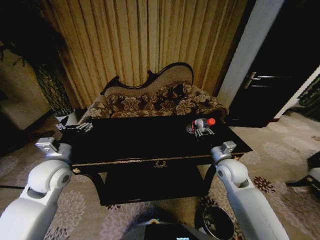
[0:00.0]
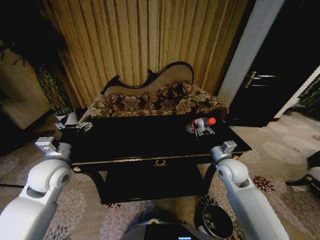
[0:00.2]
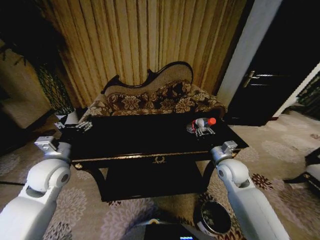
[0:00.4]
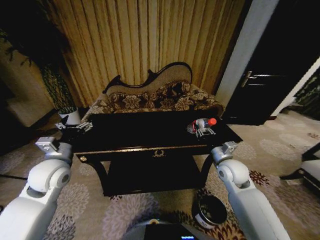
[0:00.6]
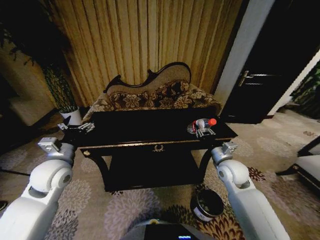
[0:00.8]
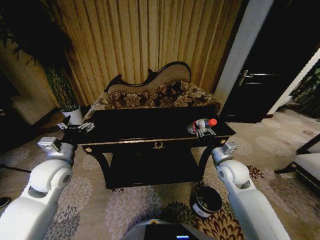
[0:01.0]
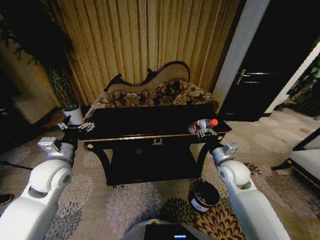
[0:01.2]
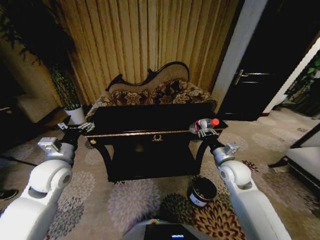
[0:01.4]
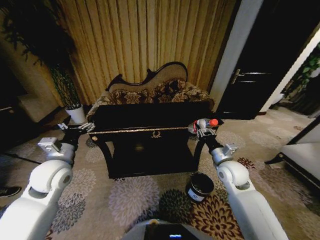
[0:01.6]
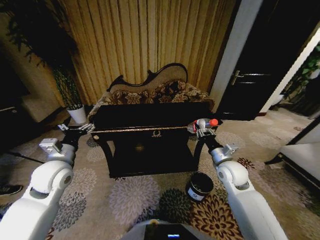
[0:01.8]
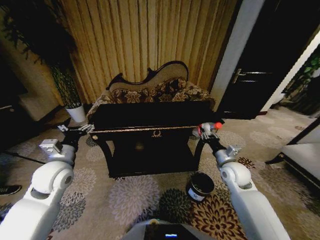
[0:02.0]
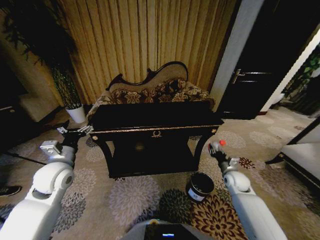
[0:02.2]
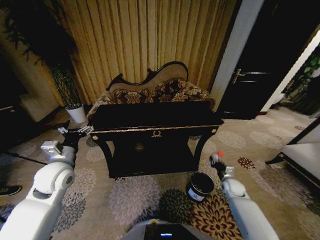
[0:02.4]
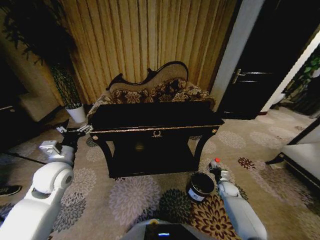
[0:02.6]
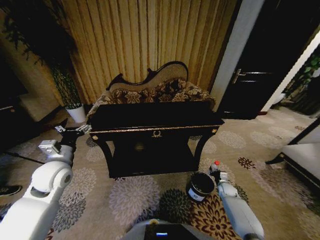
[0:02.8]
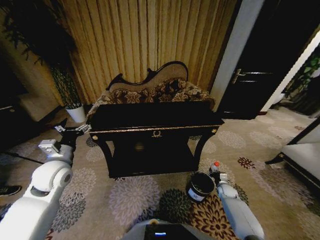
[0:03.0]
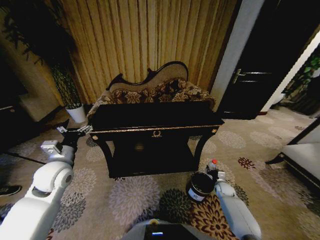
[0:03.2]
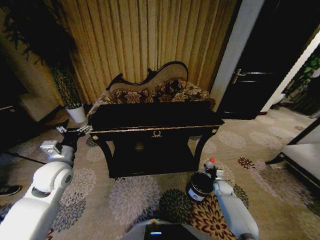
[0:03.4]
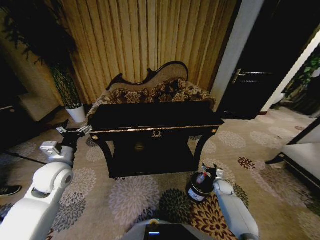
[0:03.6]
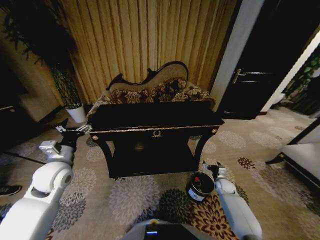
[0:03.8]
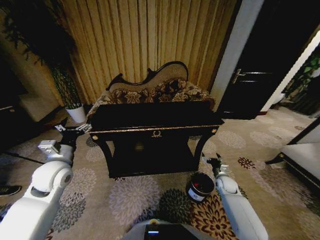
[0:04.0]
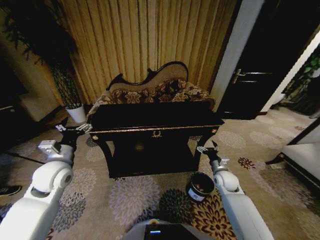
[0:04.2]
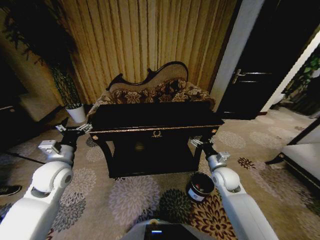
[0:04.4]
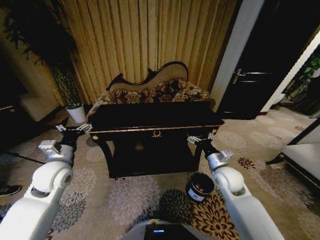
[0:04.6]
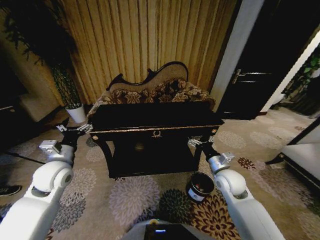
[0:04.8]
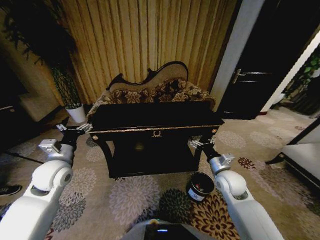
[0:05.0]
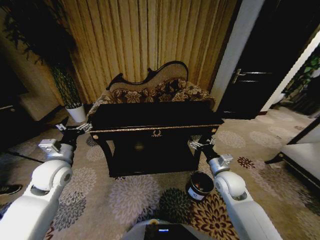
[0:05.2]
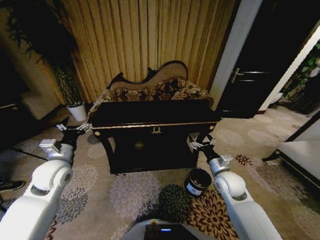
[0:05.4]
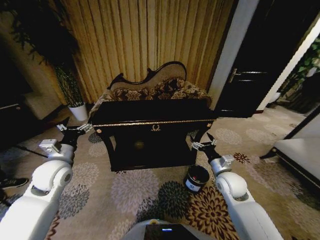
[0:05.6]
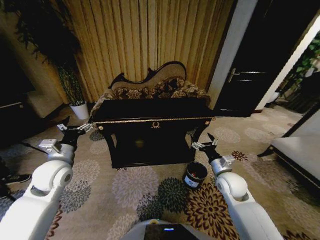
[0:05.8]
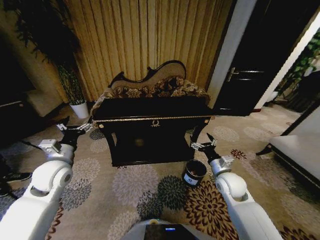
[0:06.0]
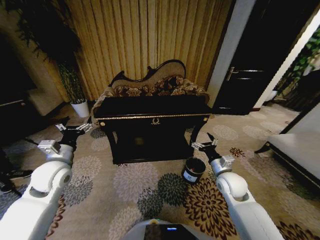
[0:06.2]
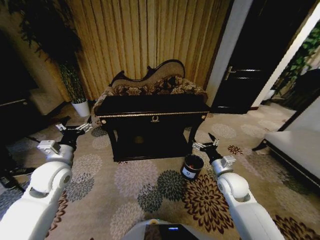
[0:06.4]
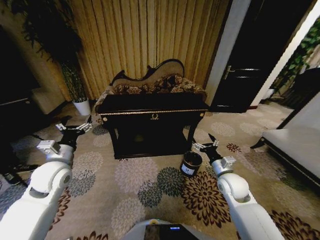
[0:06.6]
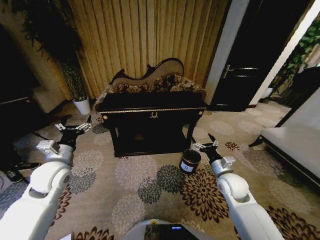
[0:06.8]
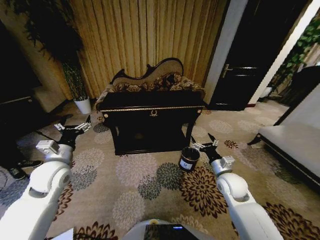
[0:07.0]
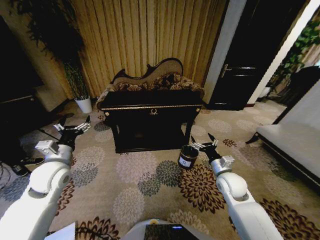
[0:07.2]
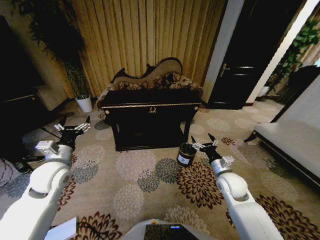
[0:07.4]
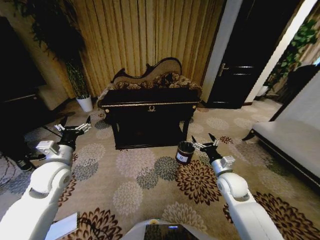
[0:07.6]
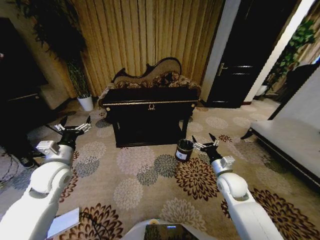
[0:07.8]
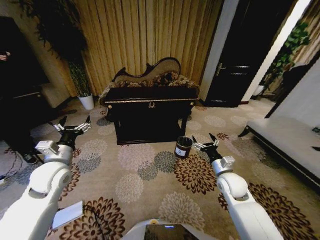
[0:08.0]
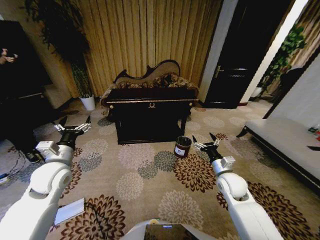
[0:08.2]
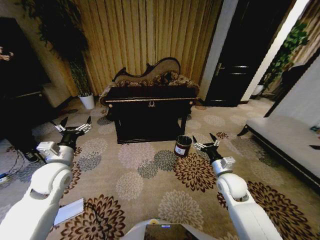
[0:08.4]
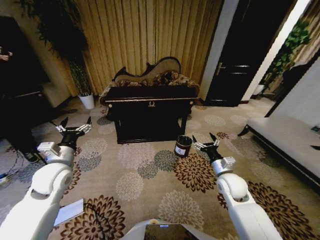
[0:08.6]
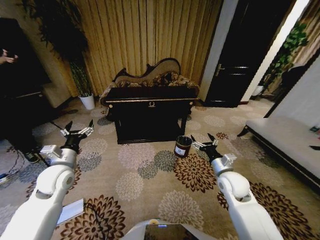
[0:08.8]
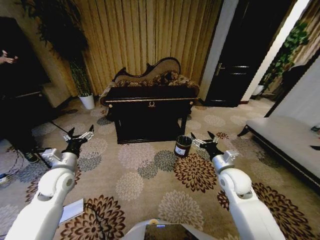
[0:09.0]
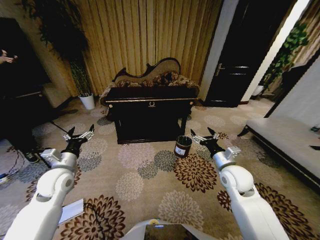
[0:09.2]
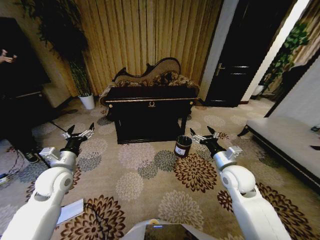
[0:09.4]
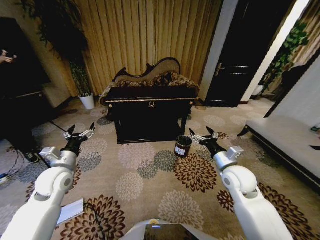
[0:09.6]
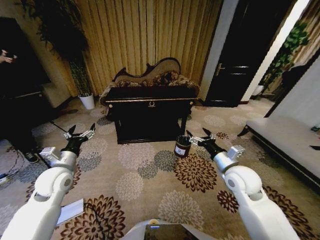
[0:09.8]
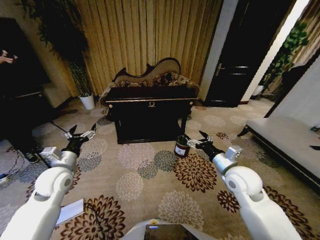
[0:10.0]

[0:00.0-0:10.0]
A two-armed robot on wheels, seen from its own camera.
Task of the whole recording: Move to the front of the table and place the trash on the table into the trash bin.
0:01.4 to 0:02.8: The right gripper heads downward and to the right, covering some 30 cm.
0:02.8 to 0:04.2: The right gripper shifts some 15 cm upward and to the left, and opens up.
0:04.2 to 0:05.8: The right gripper shifts approximately 10 cm upward and to the left.
0:08.6 to 0:10.0: The right gripper shifts approximately 10 cm upward.

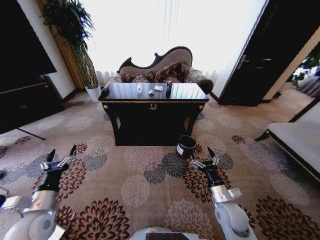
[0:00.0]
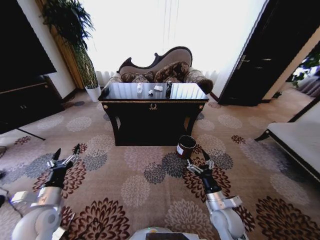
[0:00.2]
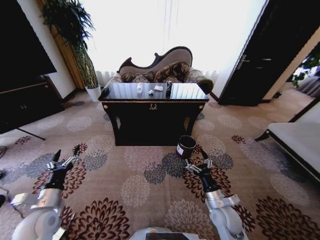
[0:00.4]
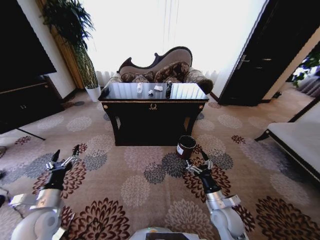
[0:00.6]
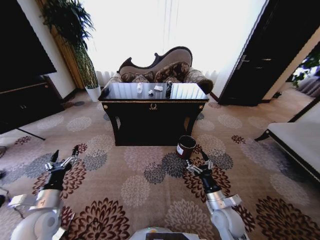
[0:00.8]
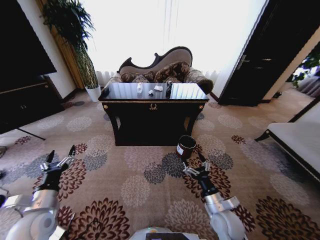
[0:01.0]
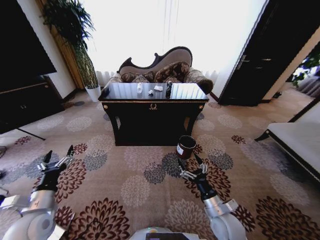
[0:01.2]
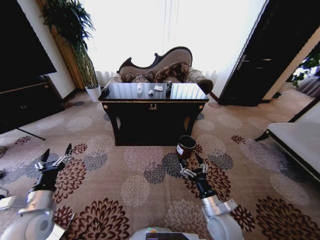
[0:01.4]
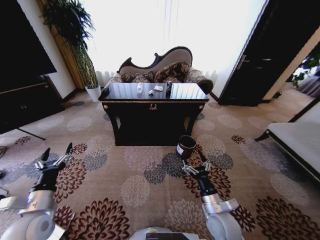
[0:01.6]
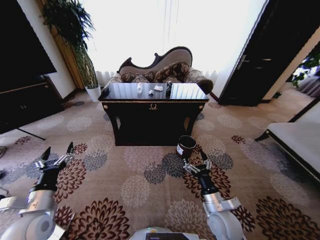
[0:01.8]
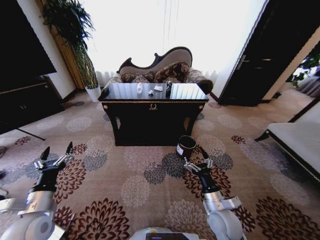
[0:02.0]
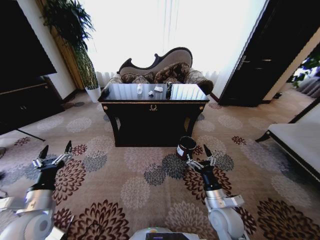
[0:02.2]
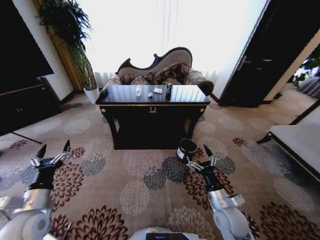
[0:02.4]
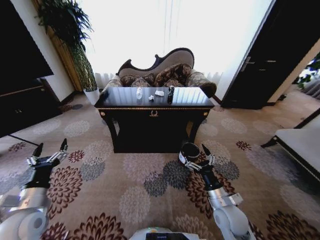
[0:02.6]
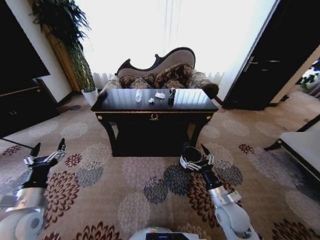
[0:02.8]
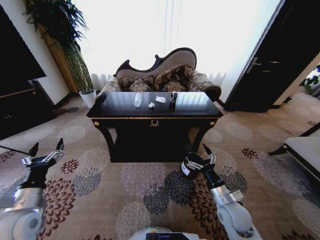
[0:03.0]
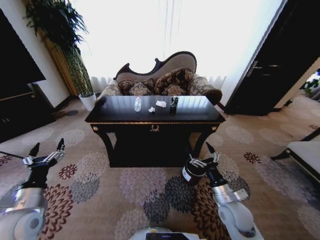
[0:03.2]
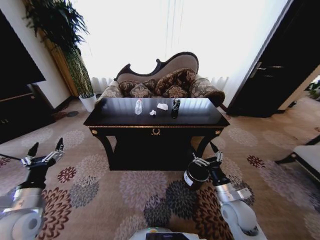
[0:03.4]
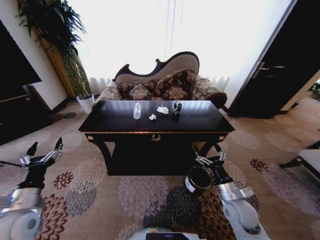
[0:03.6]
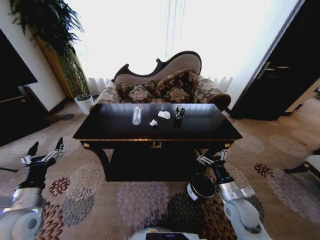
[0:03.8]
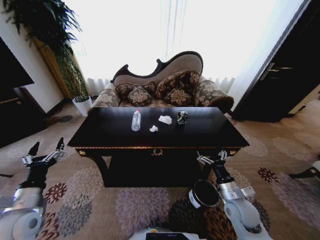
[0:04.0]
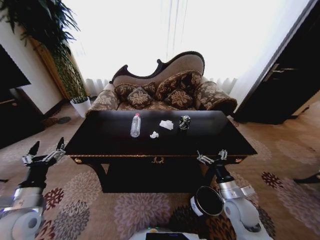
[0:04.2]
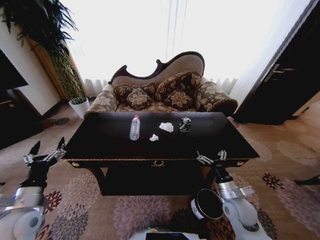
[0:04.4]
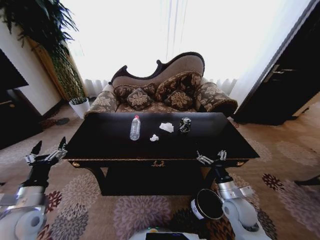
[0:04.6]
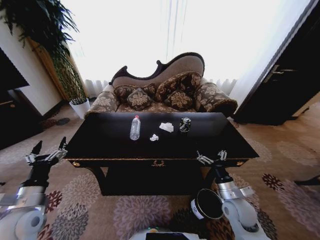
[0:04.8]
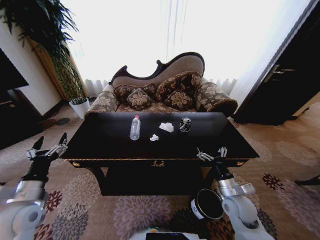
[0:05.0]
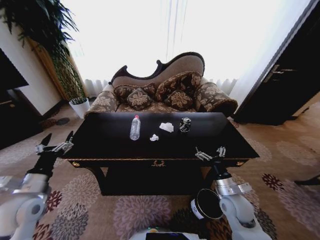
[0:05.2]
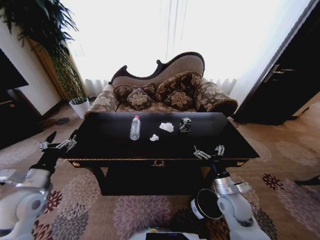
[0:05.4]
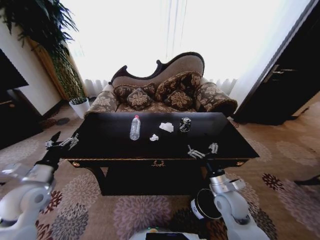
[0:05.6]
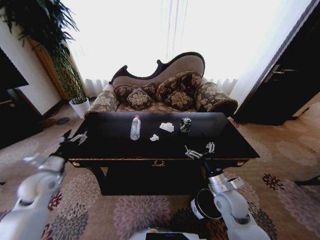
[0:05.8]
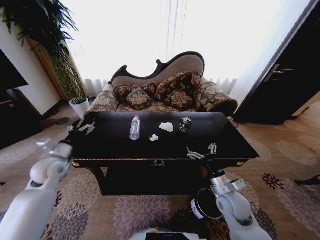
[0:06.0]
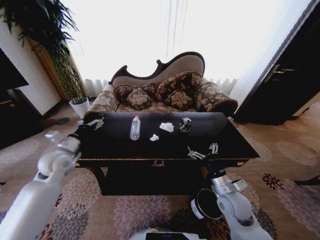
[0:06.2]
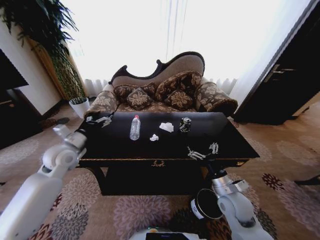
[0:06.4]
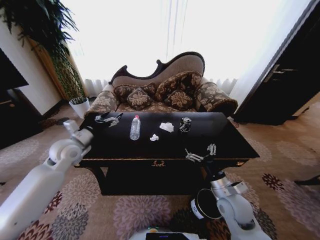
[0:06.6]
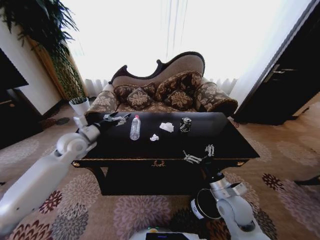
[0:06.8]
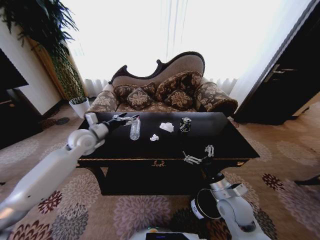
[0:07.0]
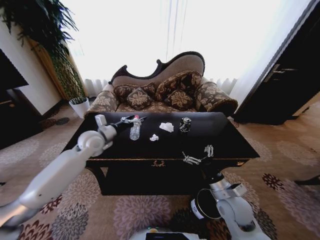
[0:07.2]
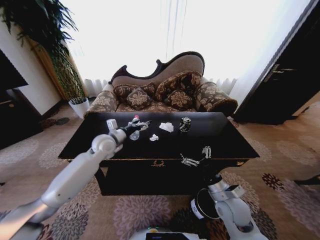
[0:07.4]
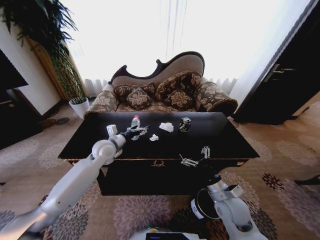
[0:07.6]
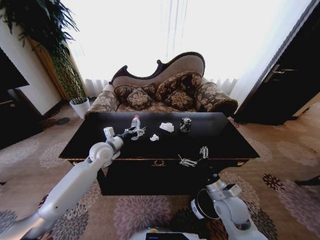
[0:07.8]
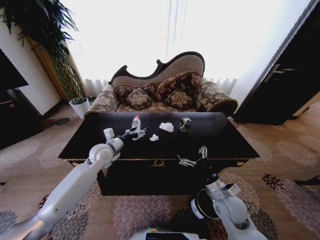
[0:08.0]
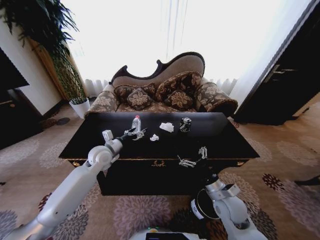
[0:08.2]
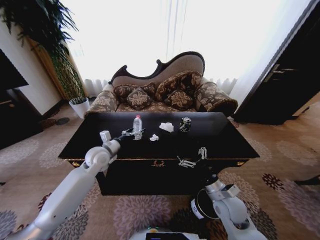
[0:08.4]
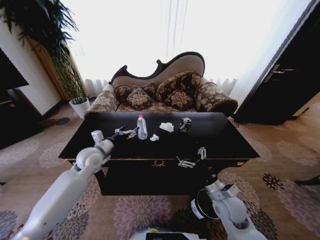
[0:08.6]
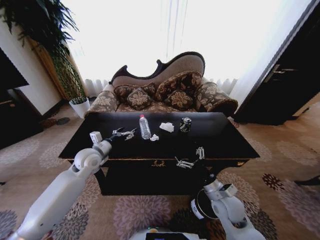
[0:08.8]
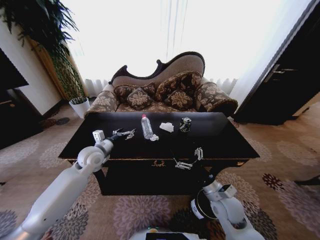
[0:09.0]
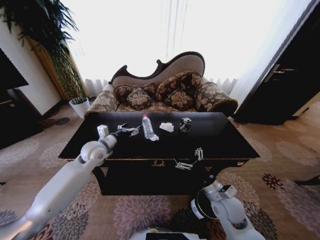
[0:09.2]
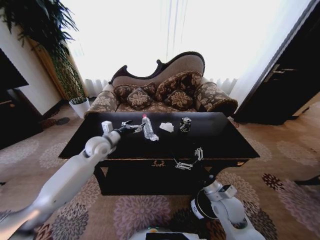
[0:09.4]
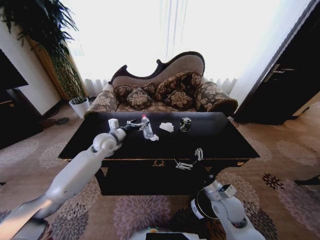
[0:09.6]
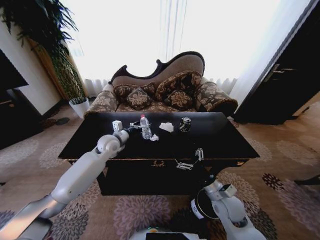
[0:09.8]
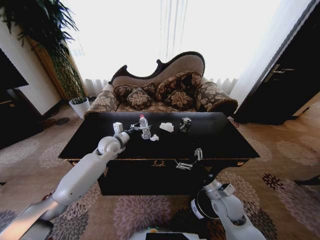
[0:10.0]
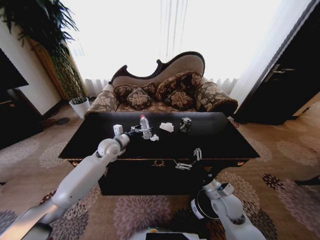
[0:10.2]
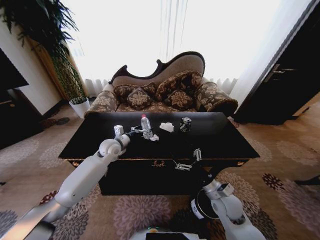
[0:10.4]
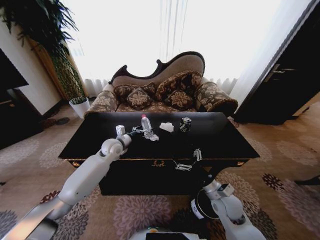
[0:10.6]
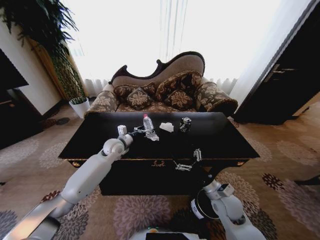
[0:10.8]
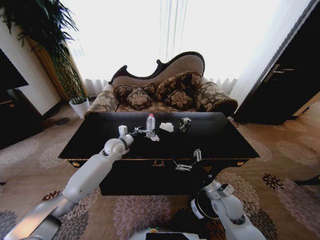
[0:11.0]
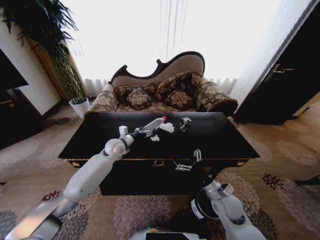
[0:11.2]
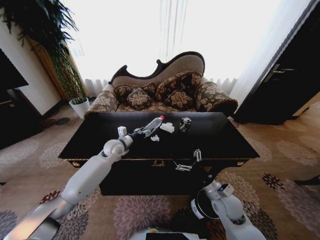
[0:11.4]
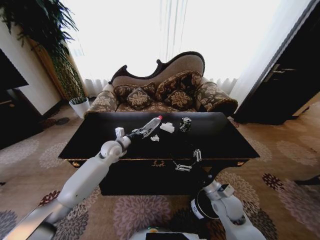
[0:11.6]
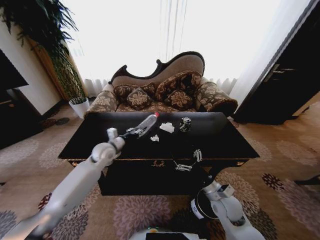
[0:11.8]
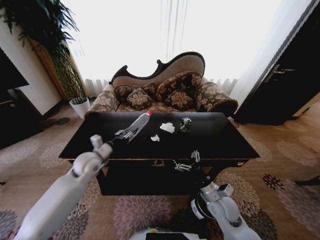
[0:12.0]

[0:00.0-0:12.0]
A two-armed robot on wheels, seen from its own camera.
Task of the whole recording: Move to the front of the table and place the trash on the table into the trash bin.
0:01.6 to 0:03.0: The right gripper moves some 5 cm.
0:04.4 to 0:06.0: The left gripper heads forward, covering roughly 15 cm.
0:06.0 to 0:07.6: The left gripper is displaced to the right and forward by some 20 cm.
0:07.6 to 0:09.0: The left gripper moves some 5 cm.
0:09.0 to 0:10.4: The left gripper is displaced forward and to the right by about 10 cm.
0:10.4 to 0:12.0: The left gripper moves backward and to the left, approximately 10 cm, and closes its fingers.
